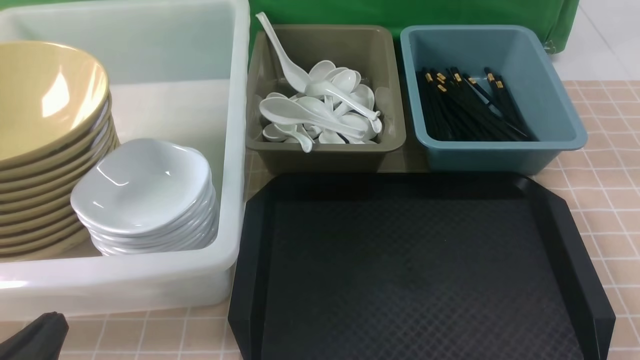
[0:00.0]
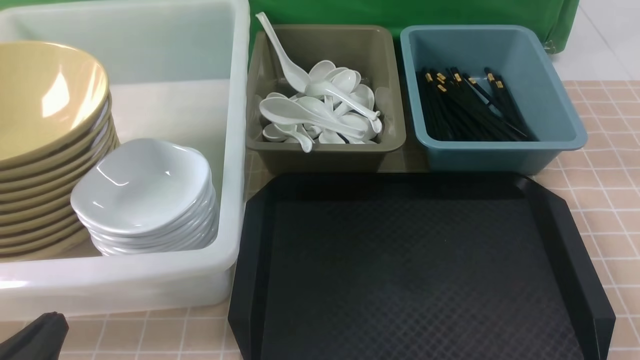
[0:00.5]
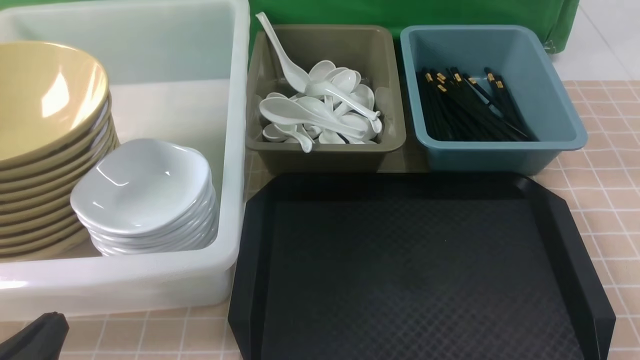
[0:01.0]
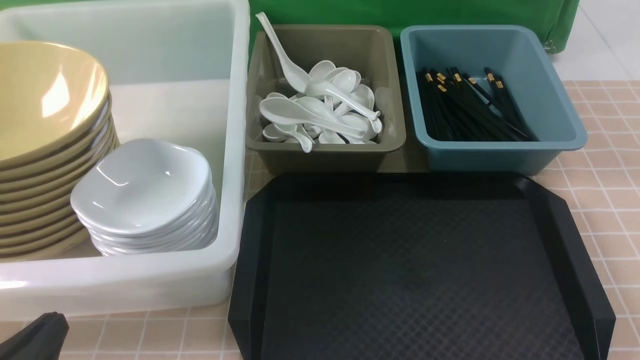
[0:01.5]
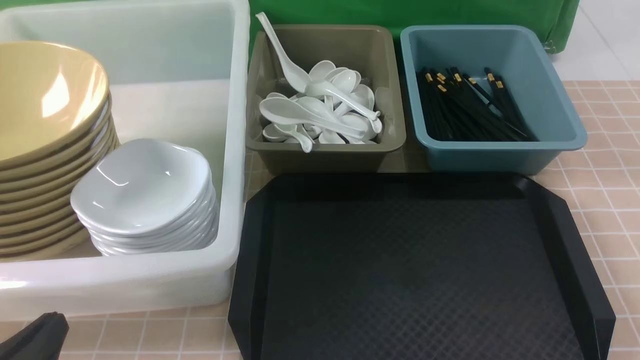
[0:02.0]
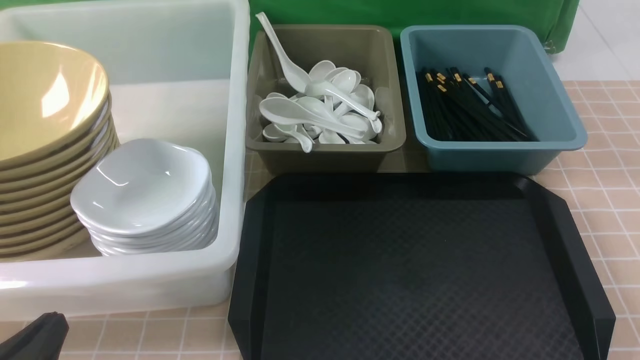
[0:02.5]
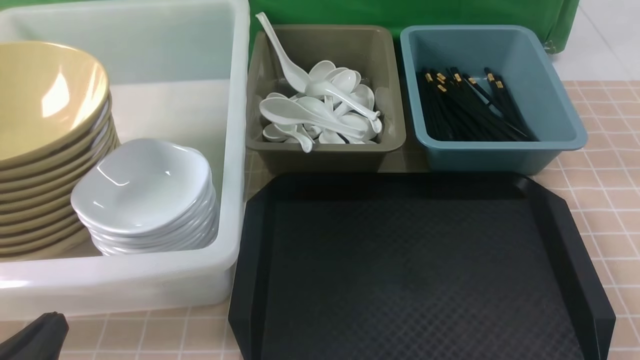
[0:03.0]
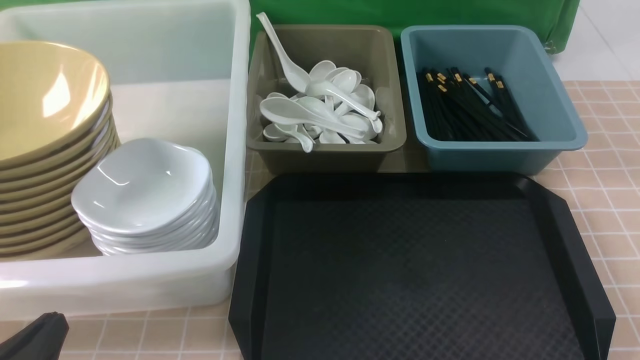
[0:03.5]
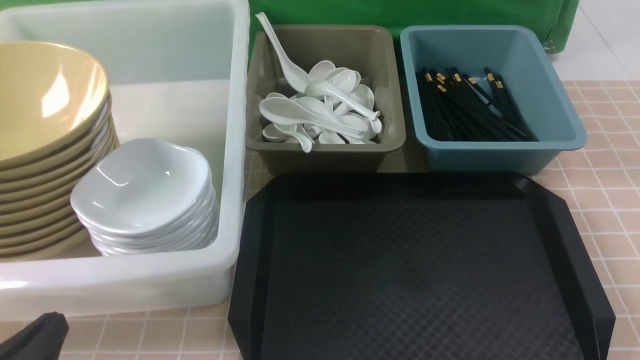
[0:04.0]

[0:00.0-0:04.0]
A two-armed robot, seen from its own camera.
Task of the whole recording: on brown table put chopsticks spoon bowls plates into blue grey white boxes.
0:00.0 to 0:04.0: Both grippers stay put.
